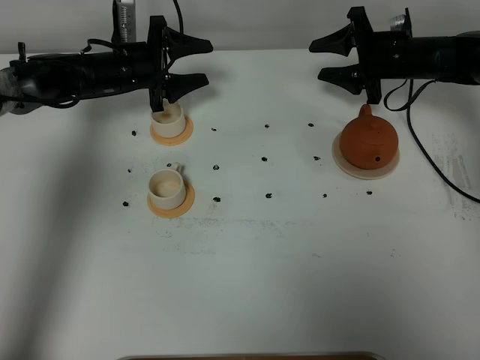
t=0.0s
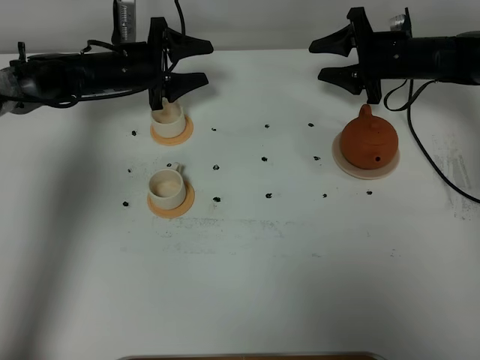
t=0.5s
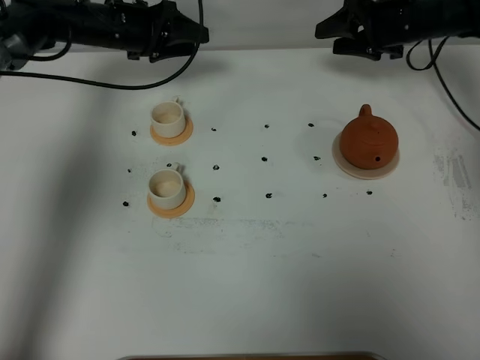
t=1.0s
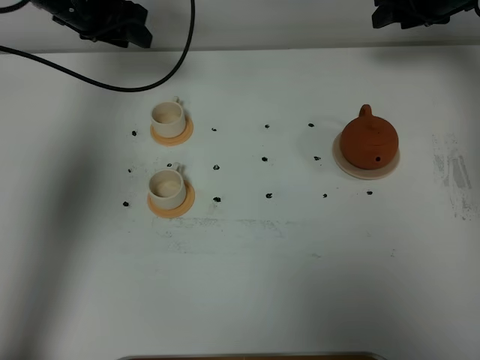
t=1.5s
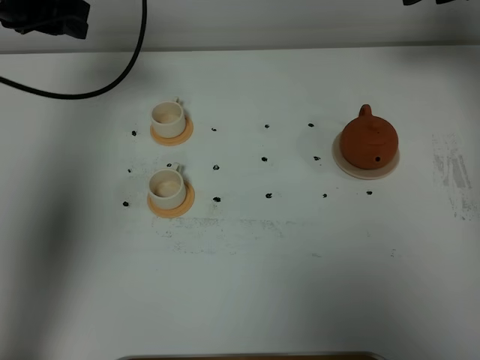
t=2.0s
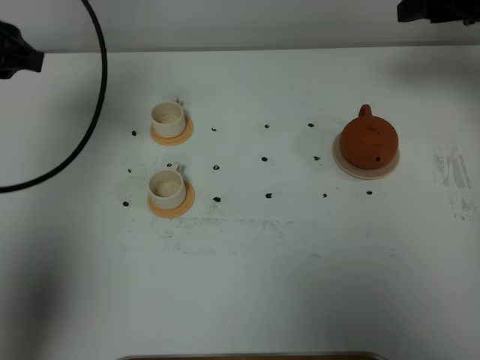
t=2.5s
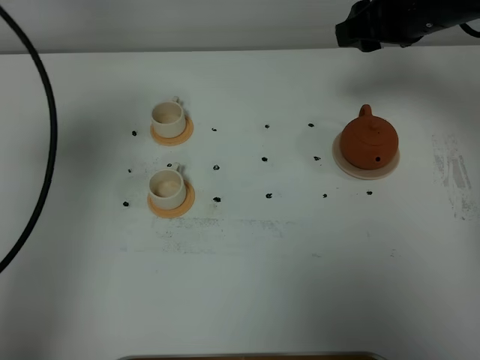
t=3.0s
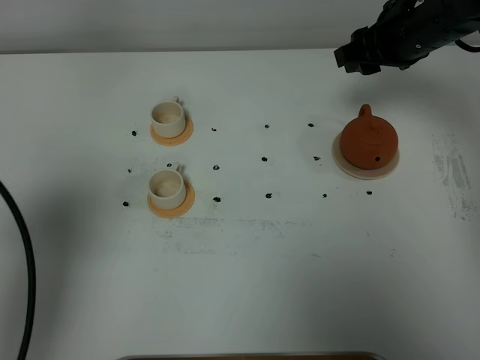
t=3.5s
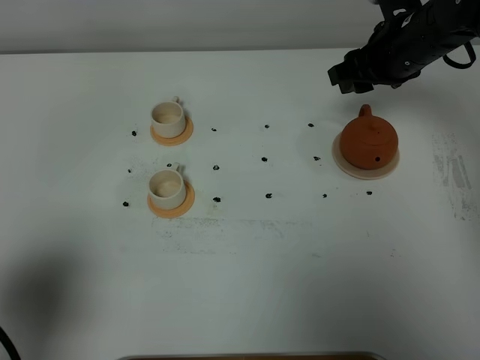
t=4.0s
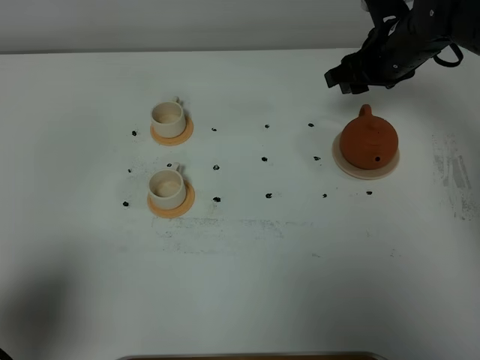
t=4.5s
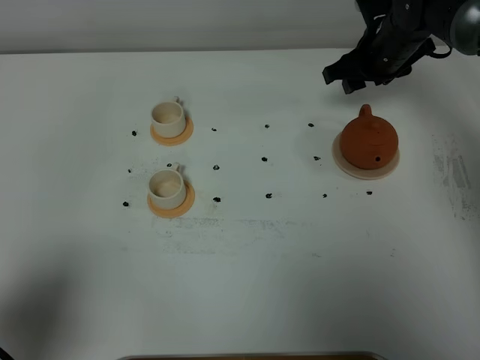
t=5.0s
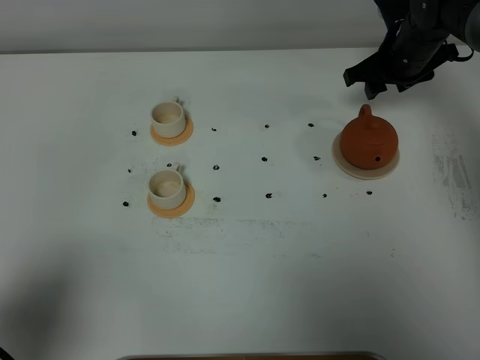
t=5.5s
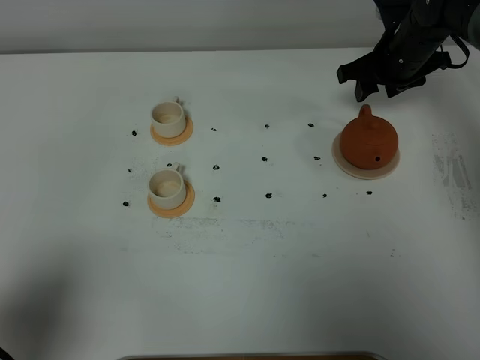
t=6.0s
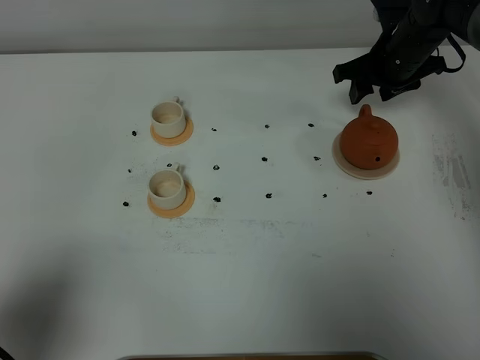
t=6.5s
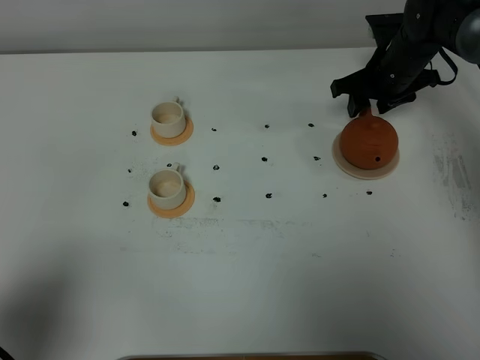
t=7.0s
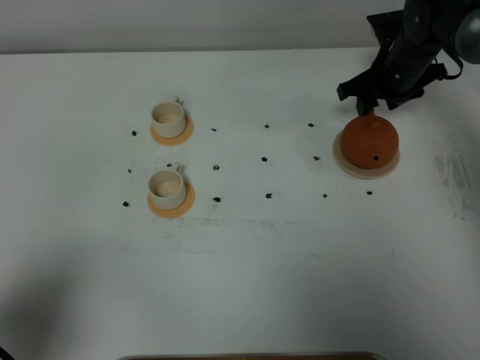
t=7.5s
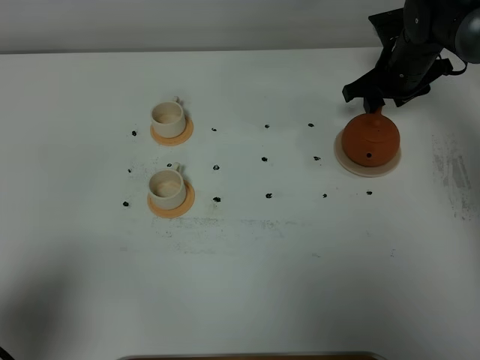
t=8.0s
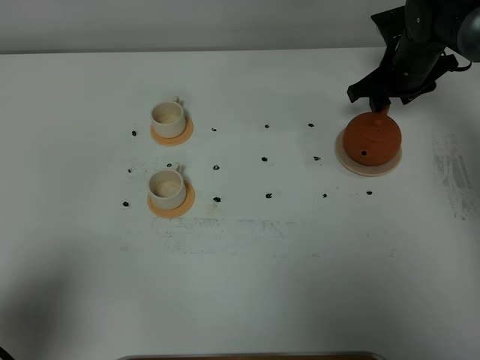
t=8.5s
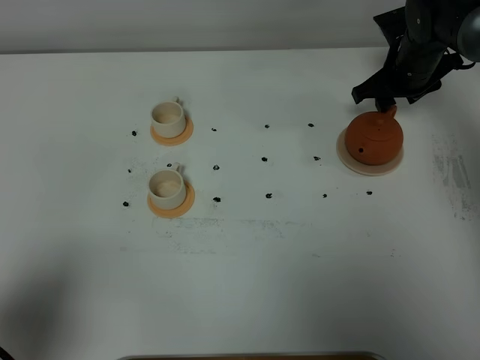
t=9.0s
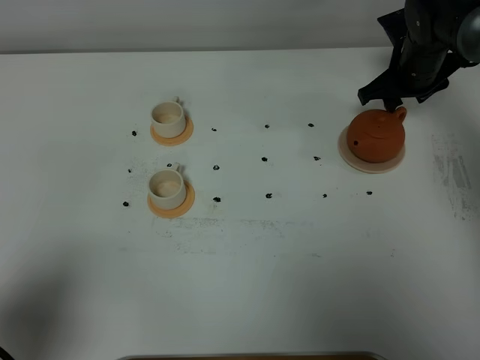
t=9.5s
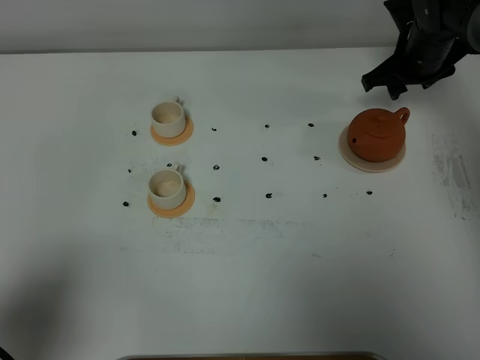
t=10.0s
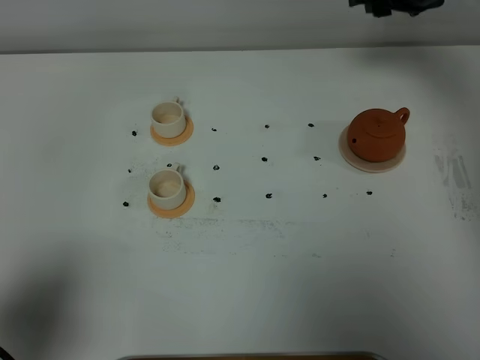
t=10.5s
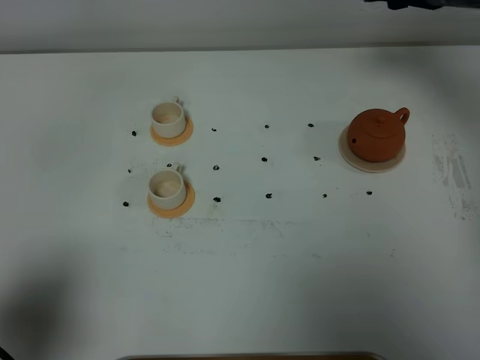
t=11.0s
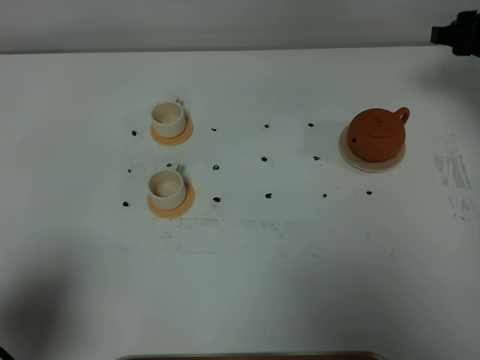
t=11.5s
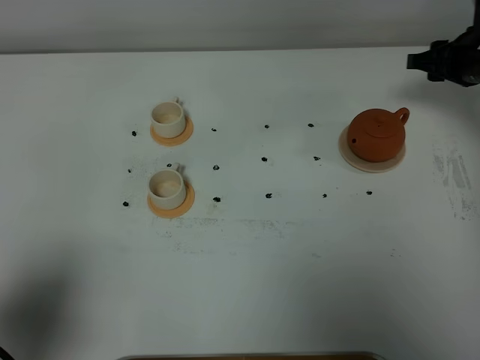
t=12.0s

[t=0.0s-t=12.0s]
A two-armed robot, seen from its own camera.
Task of the whole recording: grasp the brown teapot and pour the tea into the two white teacups one by one, put the brown teapot back in its original place.
t=0.0s to t=2.0s: The grippers both shift upward by approximately 20 cm.
t=2.0s to t=4.0s: The left gripper heads backward, covering roughly 40 cm, while the right gripper moves downward and to the left, some 10 cm.
t=4.0s to t=6.0s: The right gripper travels forward and downward by roughly 10 cm.
t=6.0s to t=10.0s: The grippers stay close to where they were, moving slightly.
t=10.0s to t=12.0s: The right gripper heads to the right and backward, covering about 5 cm, and travels upward and back again, about 10 cm each way.

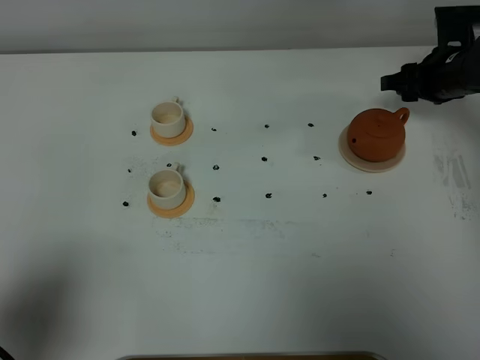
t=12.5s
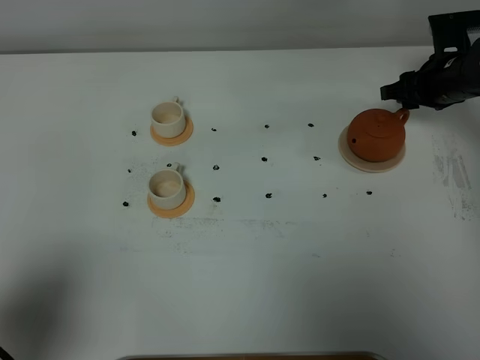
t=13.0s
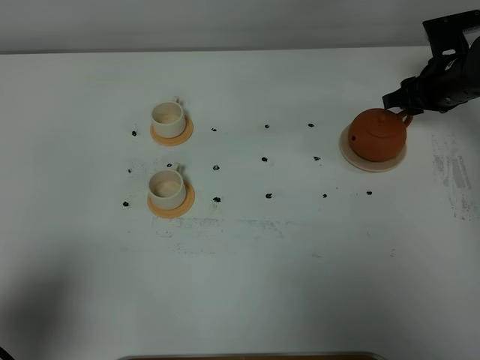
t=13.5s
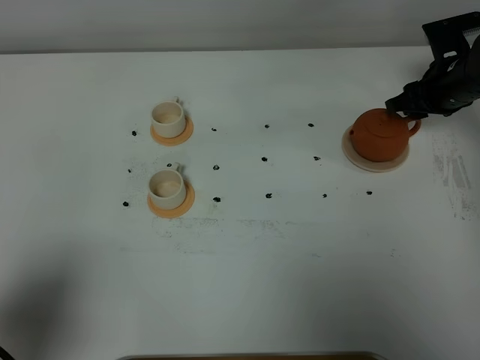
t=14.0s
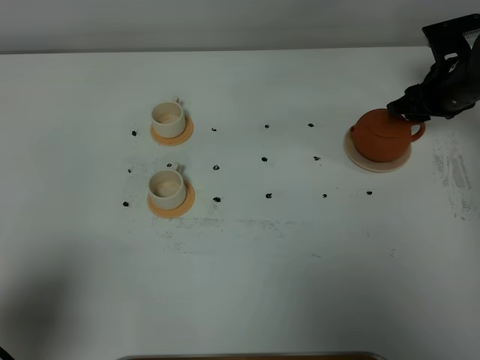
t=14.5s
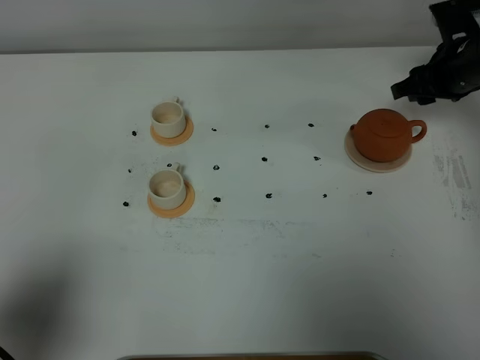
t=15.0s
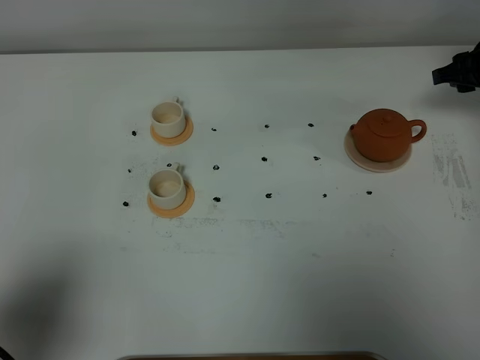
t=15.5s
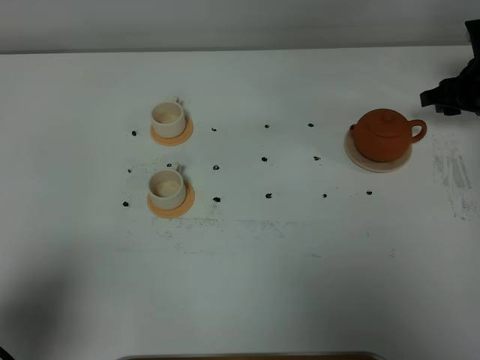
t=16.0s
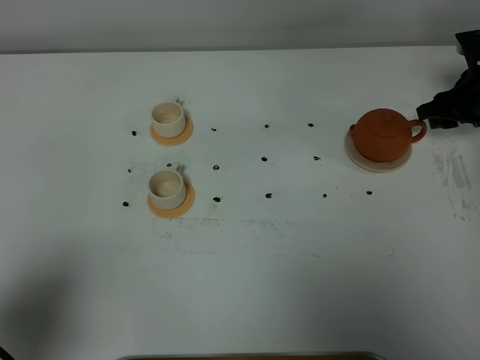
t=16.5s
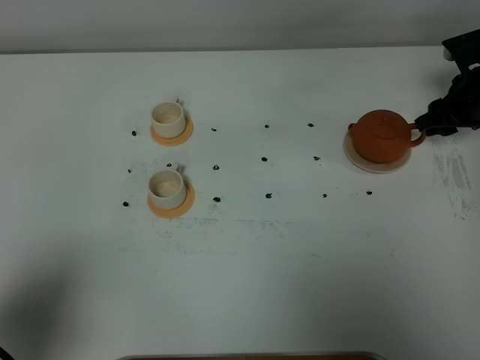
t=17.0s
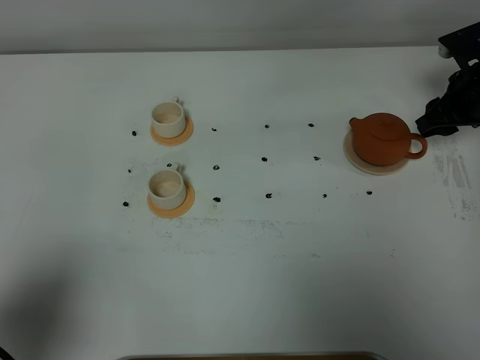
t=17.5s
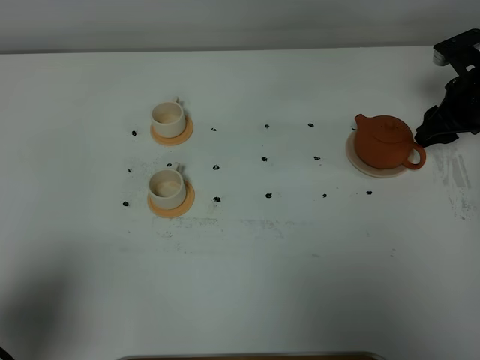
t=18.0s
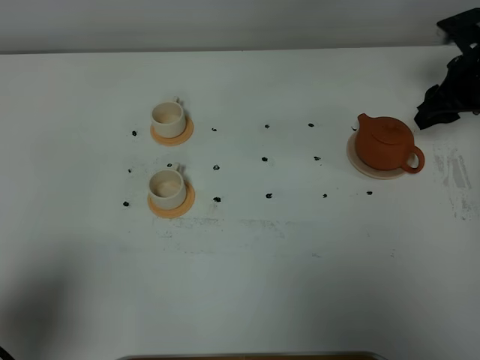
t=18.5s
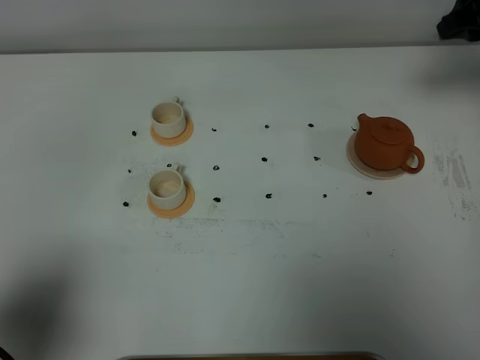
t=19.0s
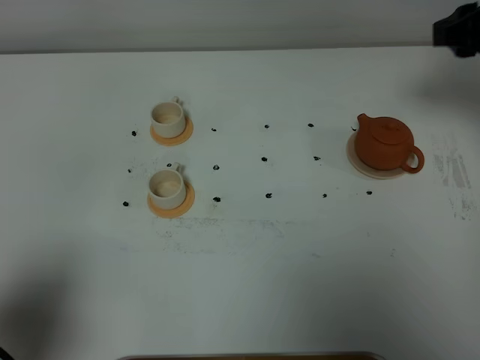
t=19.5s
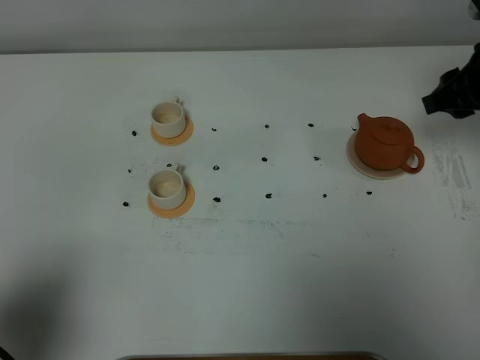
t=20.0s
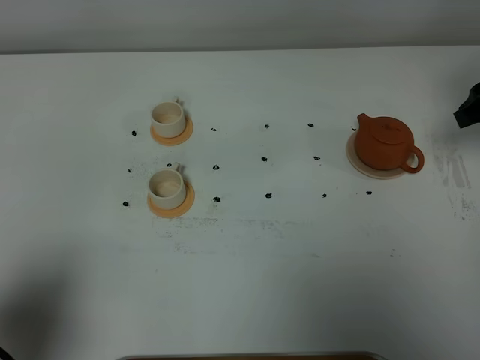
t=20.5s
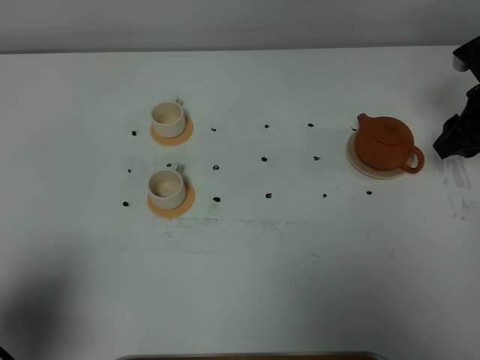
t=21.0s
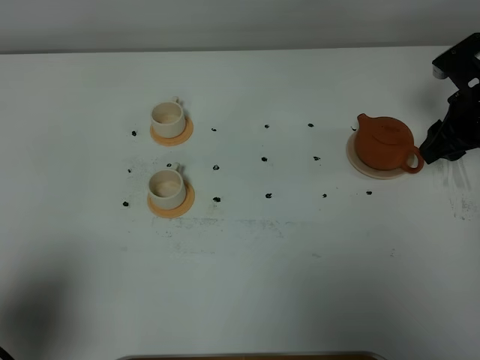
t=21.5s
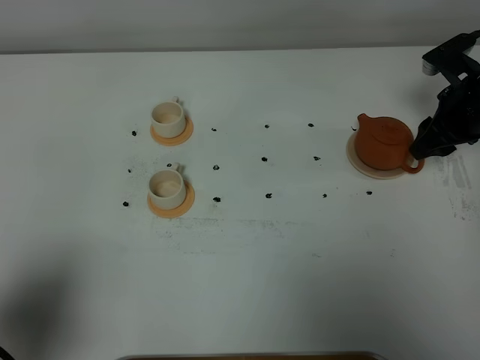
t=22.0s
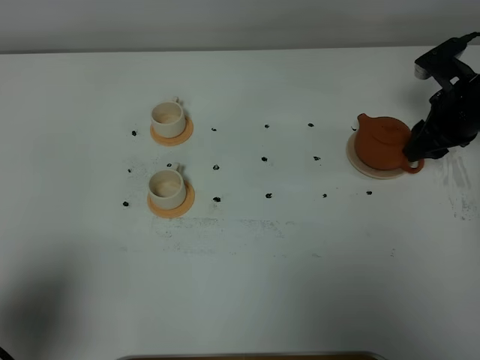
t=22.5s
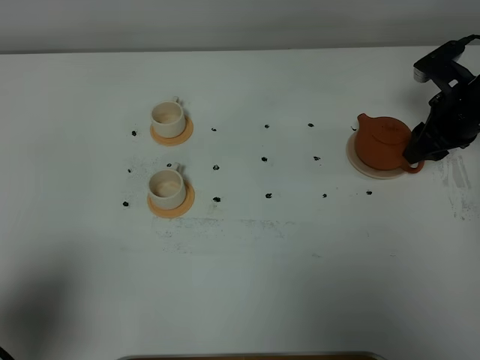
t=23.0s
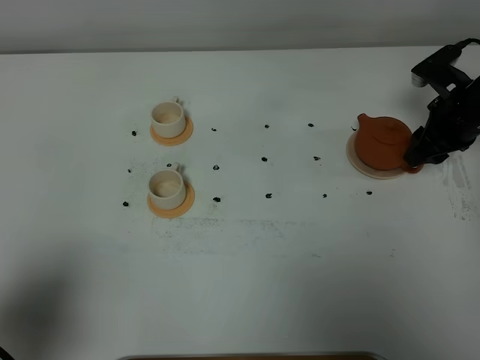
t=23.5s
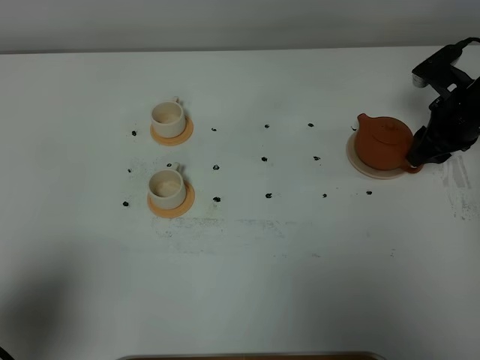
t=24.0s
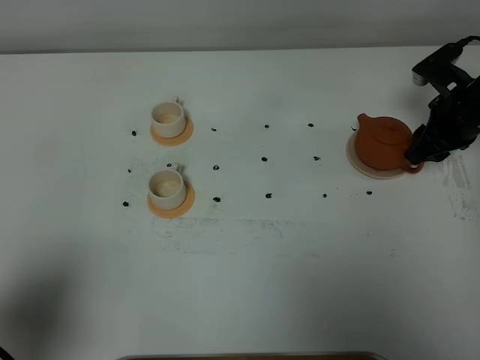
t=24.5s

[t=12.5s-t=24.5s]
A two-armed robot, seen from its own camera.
Task of the whole recording: grasp the brown teapot and pour the tea into the two white teacups one by one, put the brown teapot back in its original place.
t=12.5s to t=14.5s: There are only small adjustments of the grippers.
t=16.5s to t=18.5s: The right gripper ends up approximately 5 cm from where it was.
t=18.5s to t=20.5s: The right gripper moves backward and upward, about 10 cm.
t=20.5s to t=22.5s: The right gripper moves downward and forward, roughly 10 cm.
t=22.5s to t=24.5s: The two grippers keep their place.

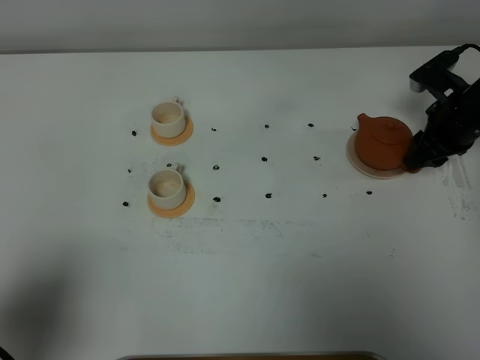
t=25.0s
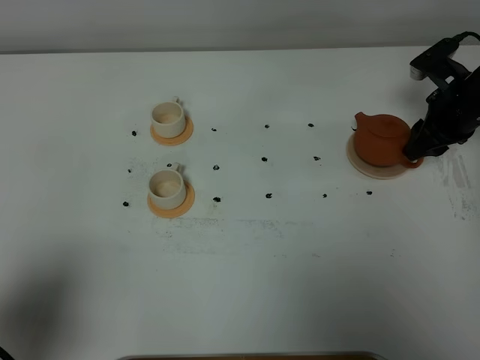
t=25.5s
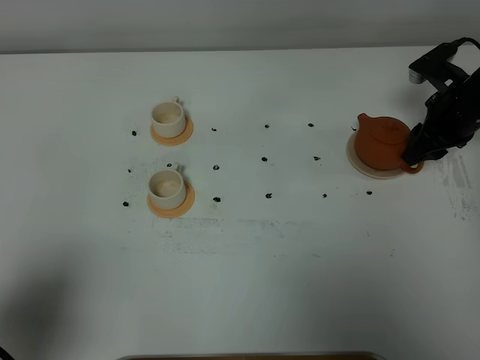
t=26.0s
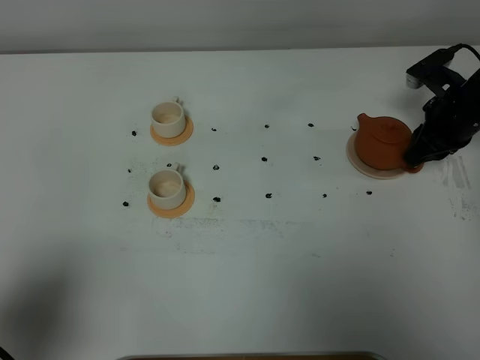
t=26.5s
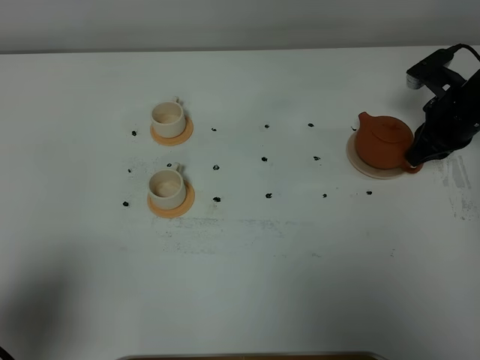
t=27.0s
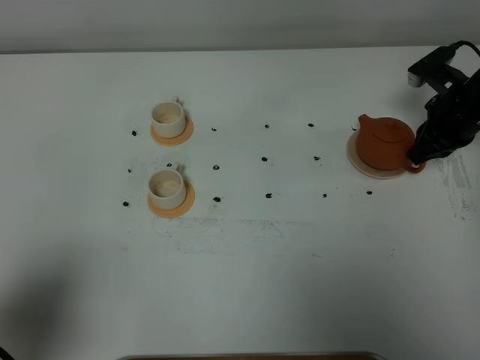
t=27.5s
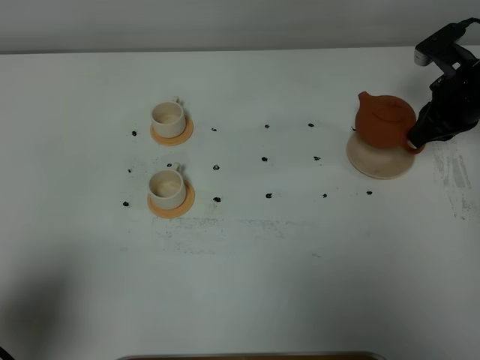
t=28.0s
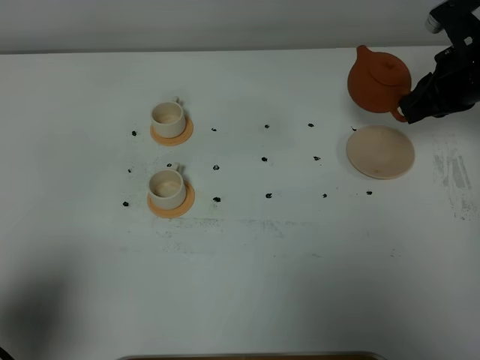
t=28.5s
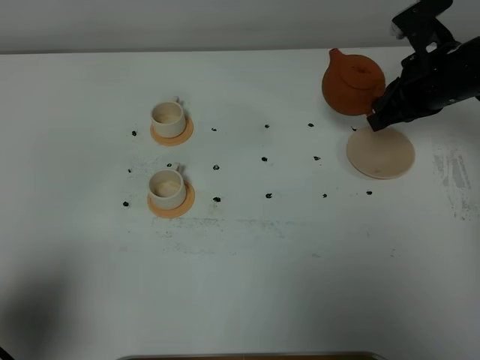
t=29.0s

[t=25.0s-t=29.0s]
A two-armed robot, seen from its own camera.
Task of the whole recording: grasp the brown teapot and pour the tea into the two white teacups one by one, put the brown teapot back in its original place.
Step, t=25.0s to t=27.5s: Pick up the teapot with the right gripper.
t=25.0s to t=27.0s: The right gripper closes.
t=27.0s to t=29.0s: The right gripper goes roughly 10 cm upward and to the left.
